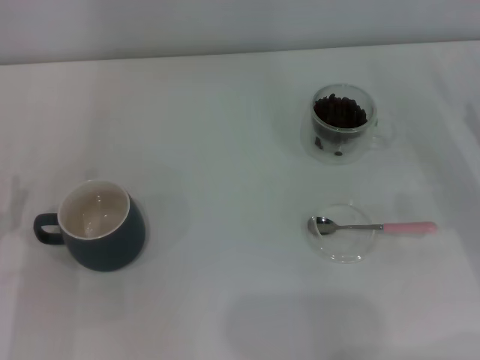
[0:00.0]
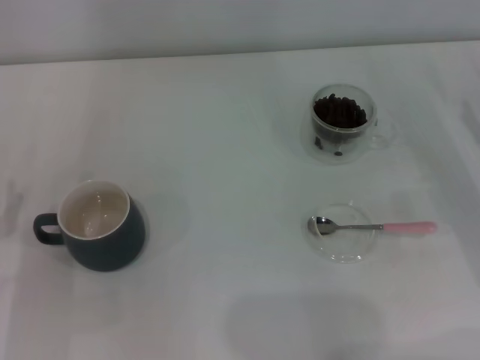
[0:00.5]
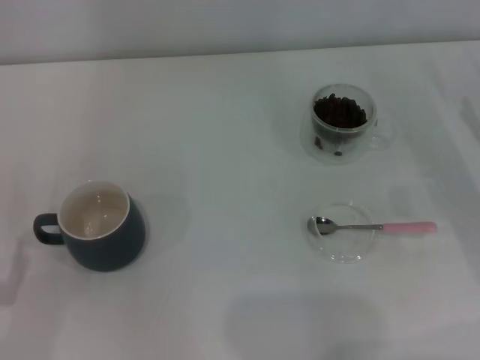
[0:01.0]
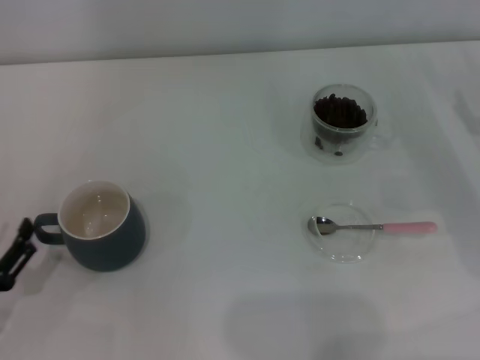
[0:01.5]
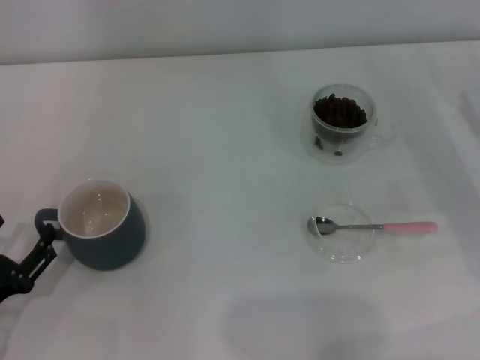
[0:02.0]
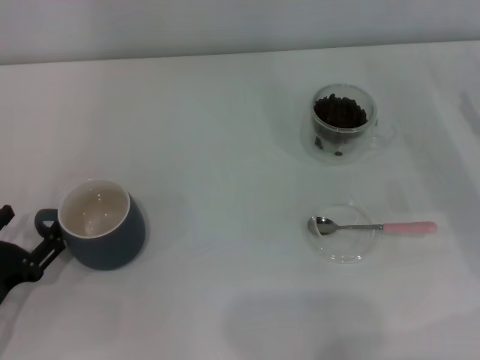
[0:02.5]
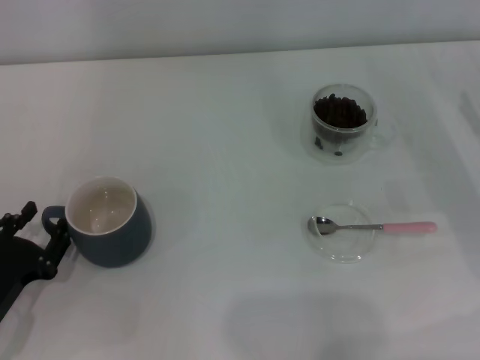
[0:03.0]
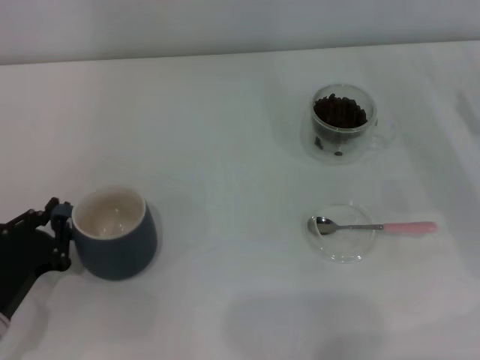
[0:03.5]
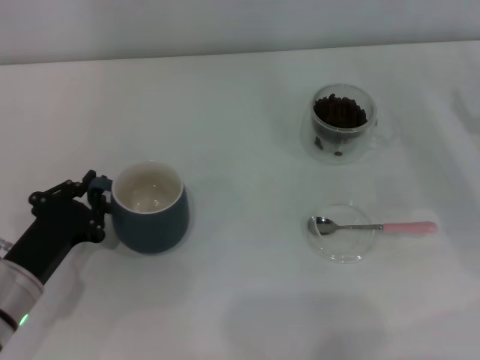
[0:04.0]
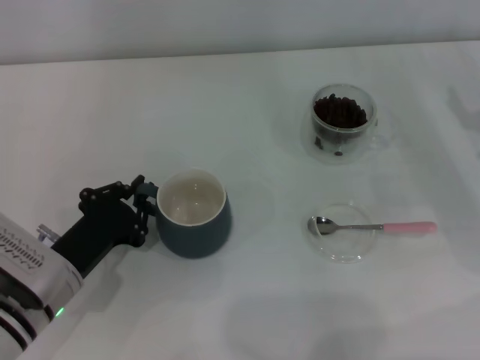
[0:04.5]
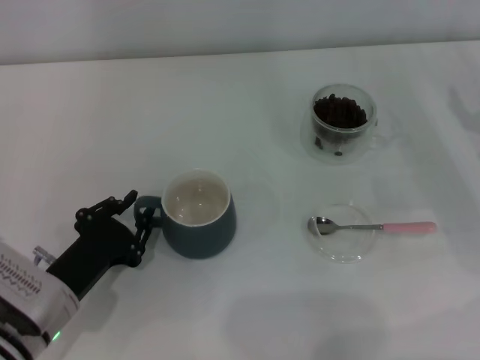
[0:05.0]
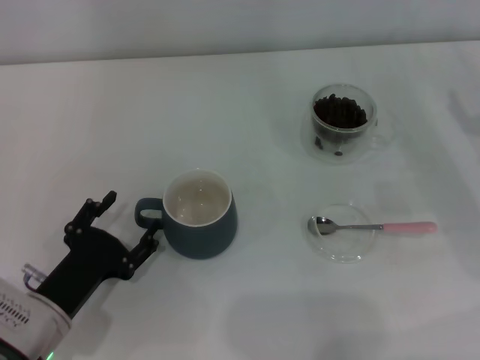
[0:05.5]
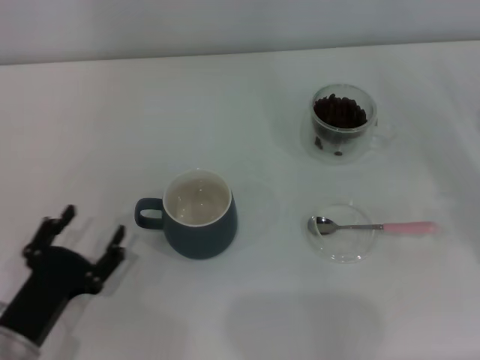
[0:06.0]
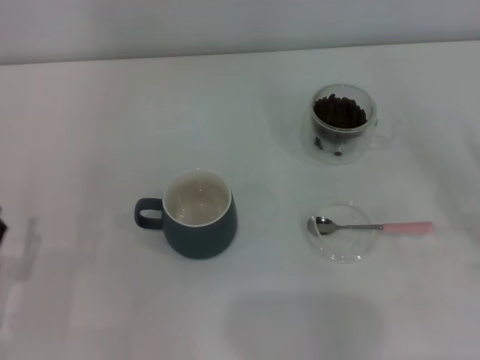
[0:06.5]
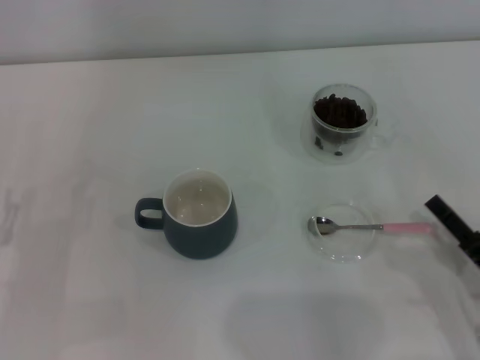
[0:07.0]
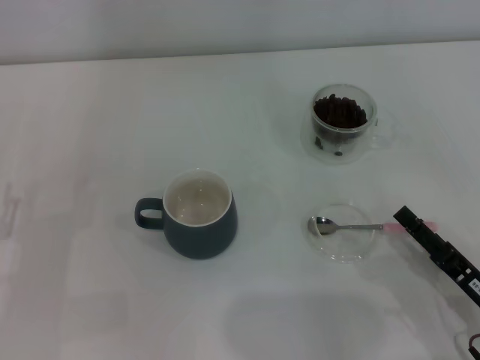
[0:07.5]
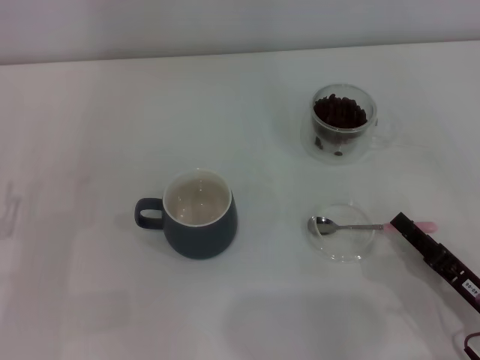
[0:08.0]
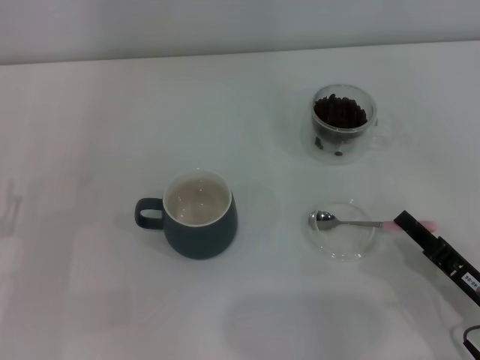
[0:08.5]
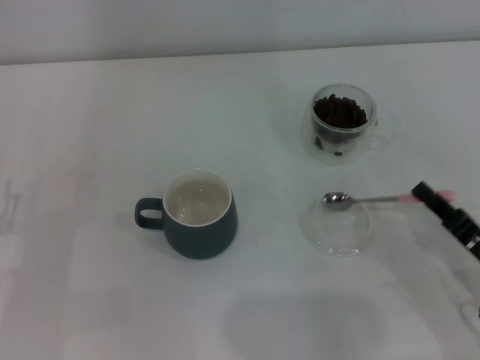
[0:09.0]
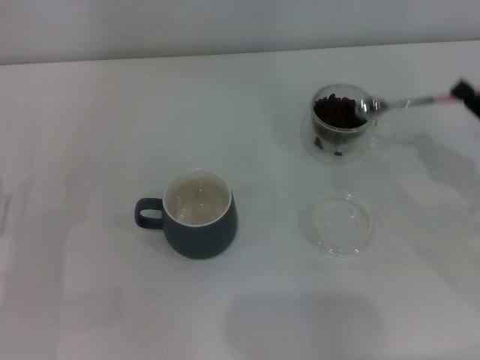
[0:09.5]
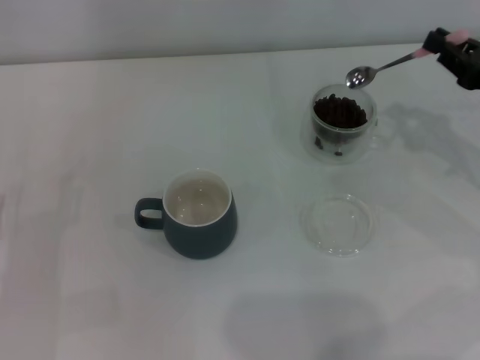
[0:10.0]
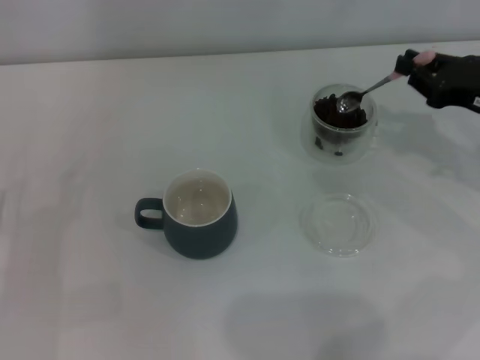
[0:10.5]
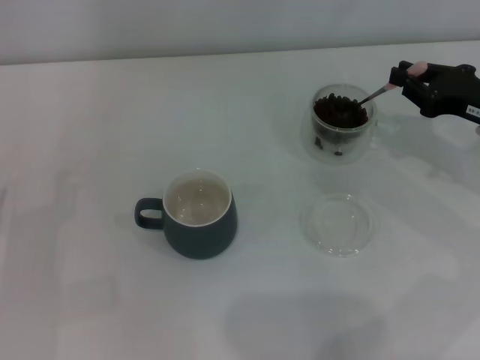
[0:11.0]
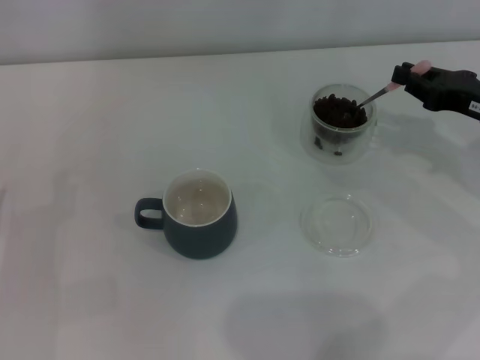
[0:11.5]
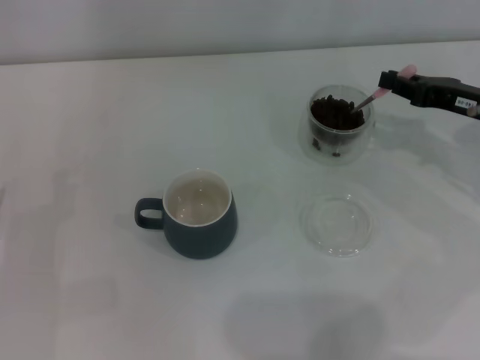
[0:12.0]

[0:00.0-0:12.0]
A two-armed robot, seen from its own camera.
Task of the whole recording: Use a pink spoon to take out the coffee beans from the glass and pour them into the gray cup.
Step, 0:00.0 to 0:05.5: Move the cup to the center of view with the left gripper.
Step, 0:06.0 to 0:09.0: Pick up the spoon with the right gripper.
0:02.0 to 0:04.0: The left gripper travels forward and to the right by about 10 cm, and closes.
0:04.0 to 0:06.0: The right gripper moves some 5 cm; the left gripper shifts about 5 cm backward, and opens its fingers.
0:06.0 to 0:08.0: The left gripper goes some 5 cm to the left, while the right gripper shifts about 15 cm to the left, backward and downward.
0:08.0 to 0:10.0: The right gripper moves forward, upward and to the right, roughly 20 cm, and closes.
0:10.0 to 0:12.0: There are only small adjustments of the grippers.

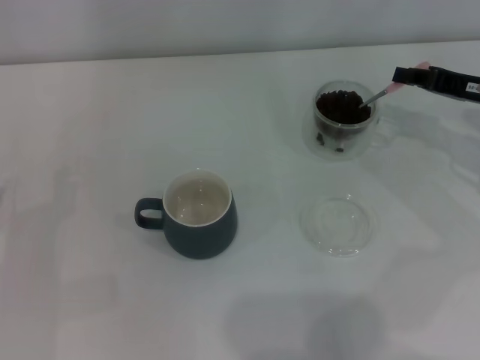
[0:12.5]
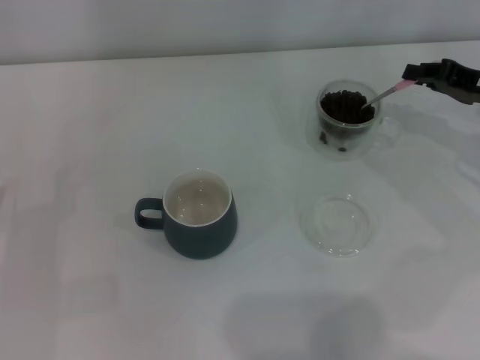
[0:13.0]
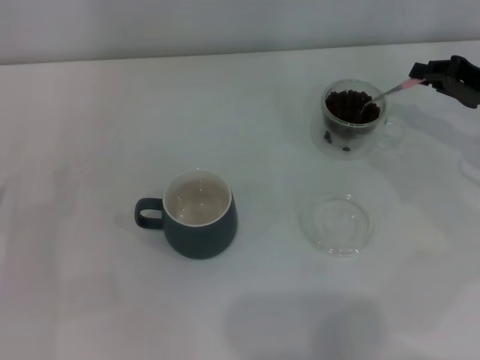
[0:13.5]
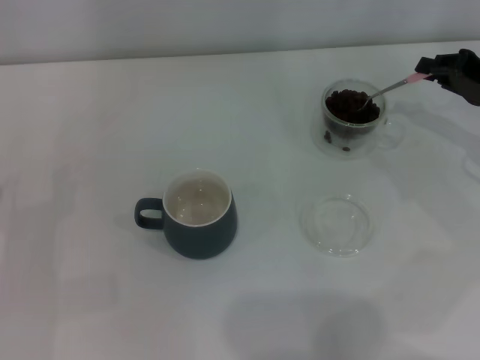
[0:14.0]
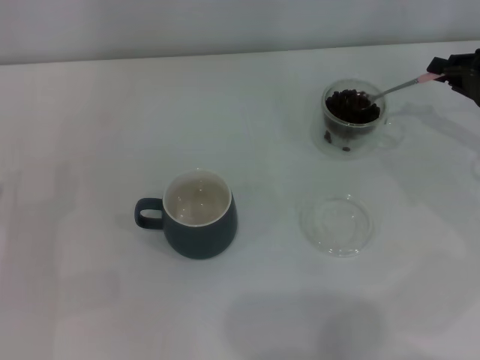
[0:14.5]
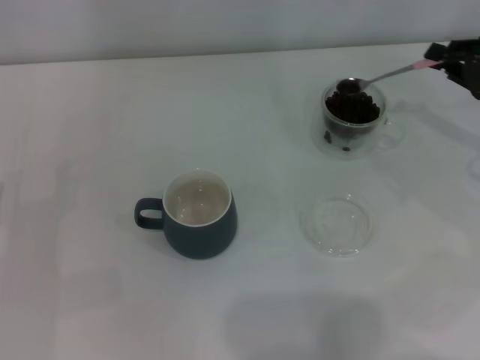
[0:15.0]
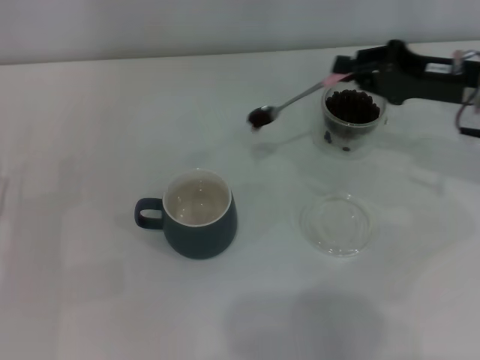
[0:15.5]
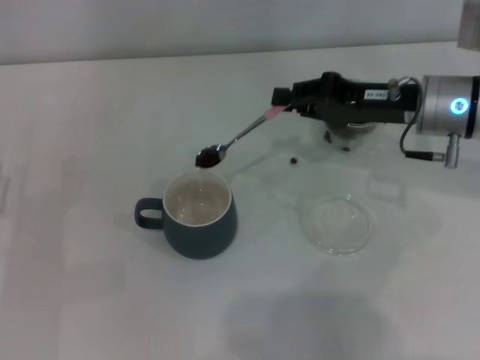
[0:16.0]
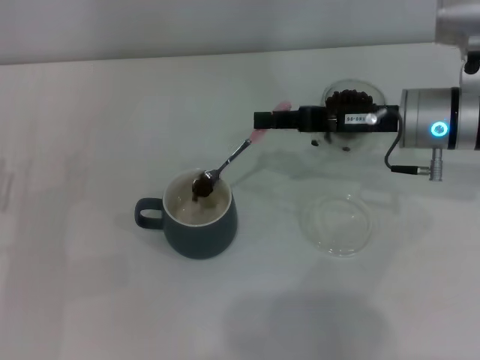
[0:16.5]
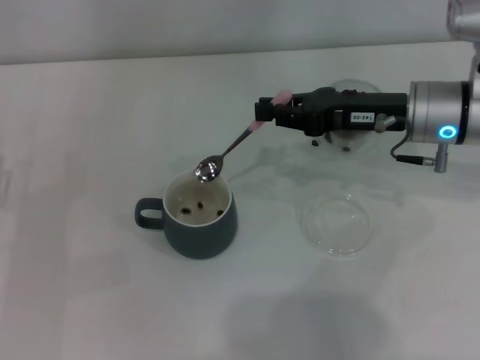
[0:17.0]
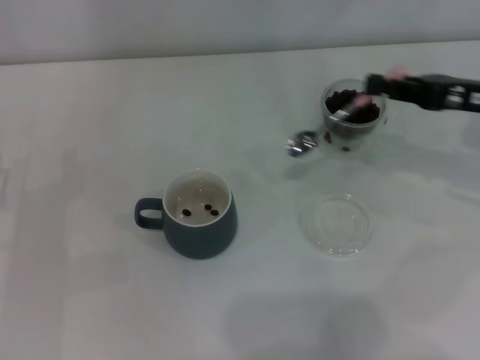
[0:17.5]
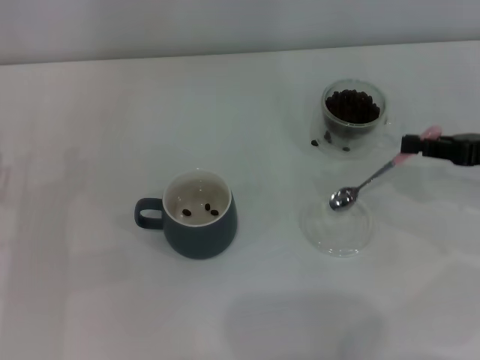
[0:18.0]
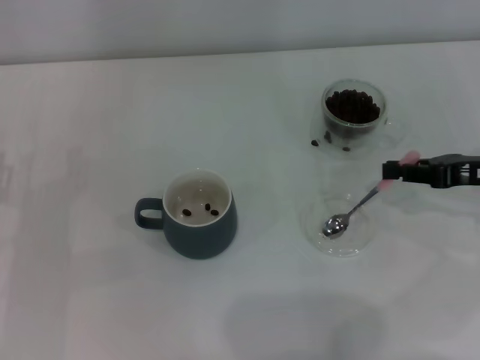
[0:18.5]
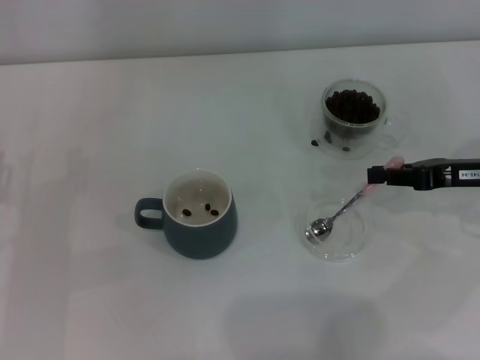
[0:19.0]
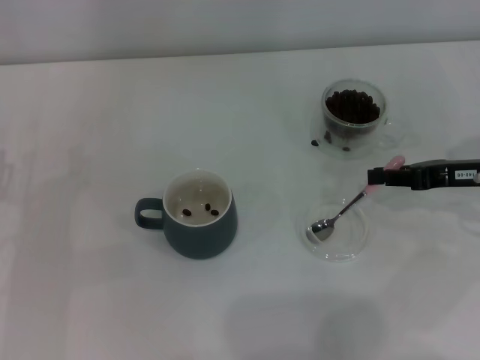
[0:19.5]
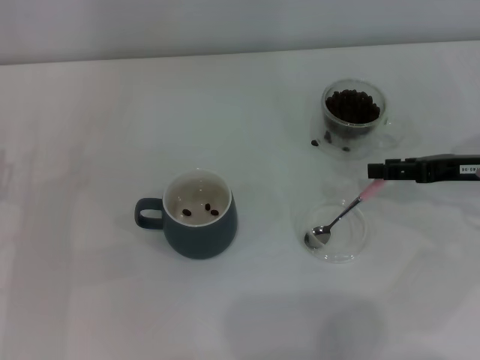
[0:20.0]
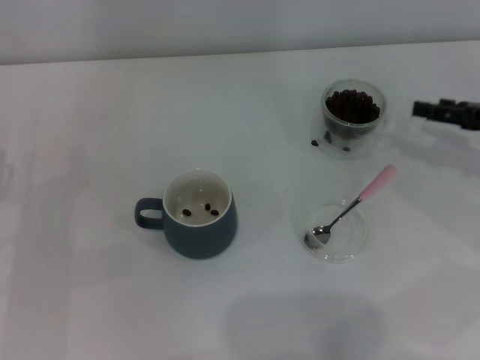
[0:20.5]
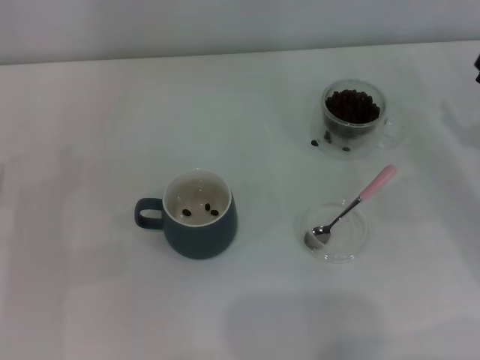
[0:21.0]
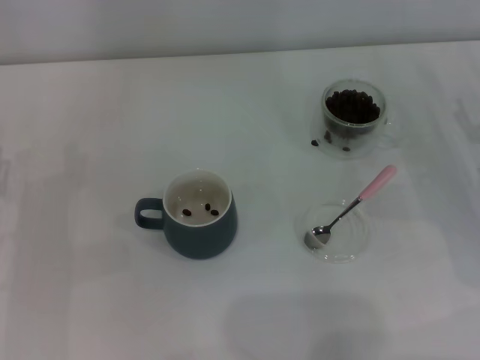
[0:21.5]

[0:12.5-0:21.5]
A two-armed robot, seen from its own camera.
Task of the whole recording: Use a pink spoon to take out the coffee beans from the glass and pour them into the gray cup.
Step, 0:12.5 to 0:17.0: Scoop a spoonful of beans into the cup with the right gripper.
Step, 0:17.5 to 0:20.0: Place the spoon back in its original place with the right gripper.
0:14.5 to 0:17.0: The right gripper shifts roughly 15 cm to the left.
0:17.0 to 0:19.5: The right gripper goes some 10 cm to the right.
0:19.5 to 0:21.5: The right gripper changes place by roughly 5 cm, and opens.

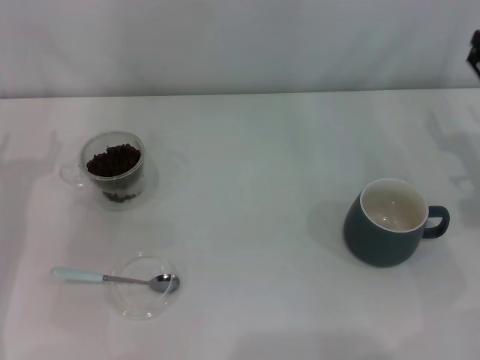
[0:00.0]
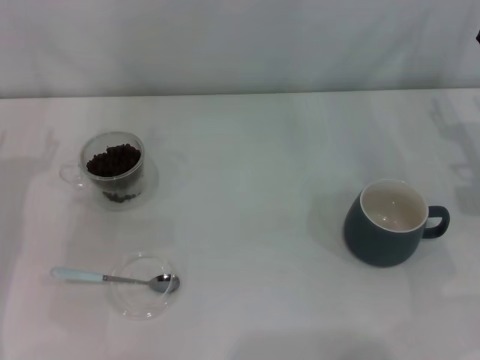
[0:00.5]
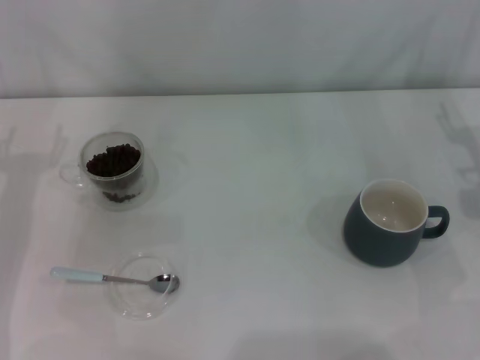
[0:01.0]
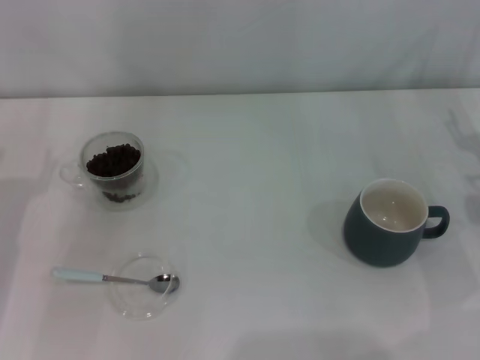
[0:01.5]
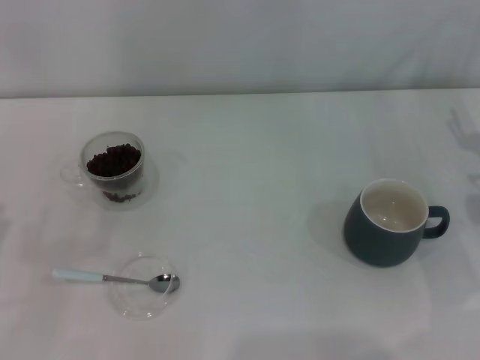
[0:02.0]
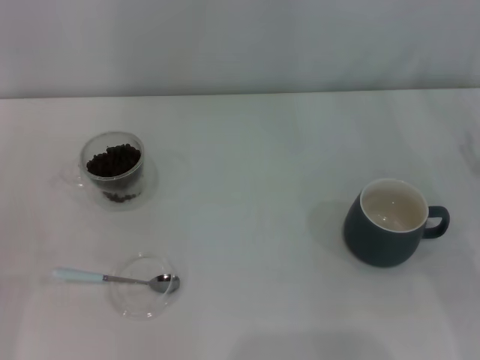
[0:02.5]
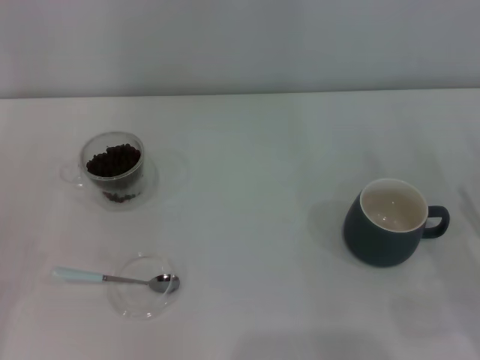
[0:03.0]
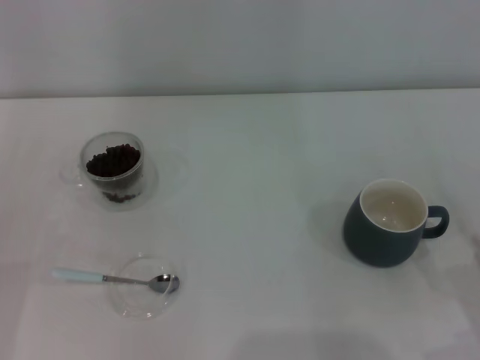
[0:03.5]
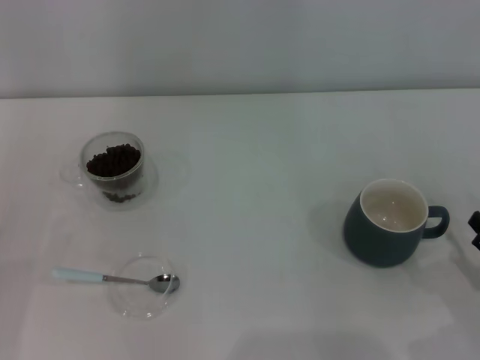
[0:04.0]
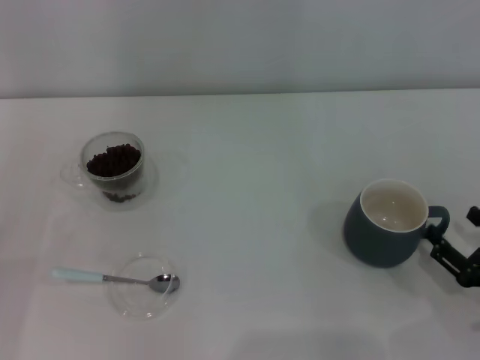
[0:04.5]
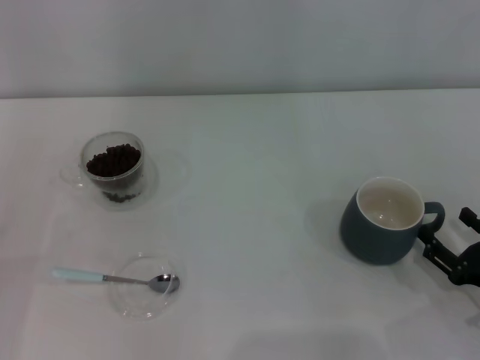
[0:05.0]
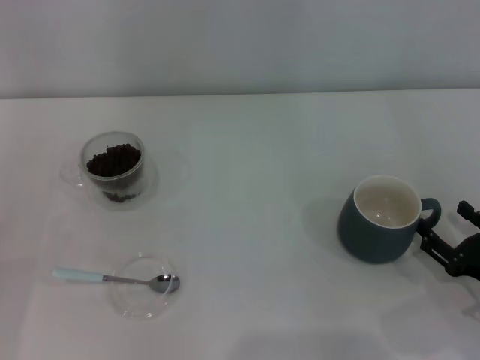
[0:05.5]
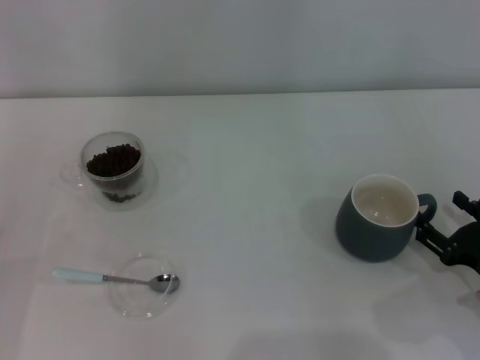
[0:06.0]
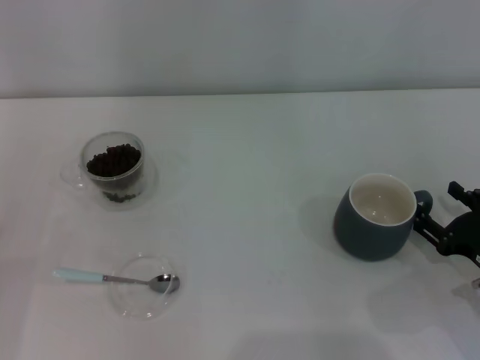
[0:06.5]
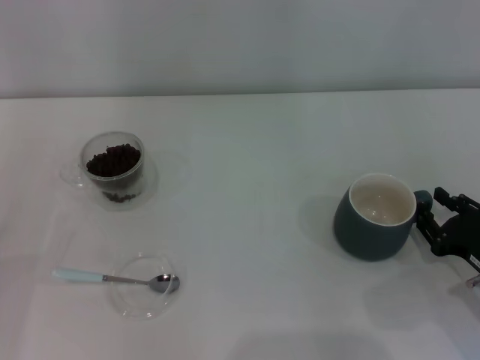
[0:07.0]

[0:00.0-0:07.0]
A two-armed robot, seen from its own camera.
Task of the whole recording: Use a blue spoon to take out the coffee beans from the glass and pour them into the gray cup.
0:02.0 to 0:03.5: The right gripper heads backward, covering roughly 20 cm.
0:03.5 to 0:05.0: The right gripper shifts by about 5 cm.
0:05.0 to 0:07.0: The grippers stay close to where they were, moving slightly.
